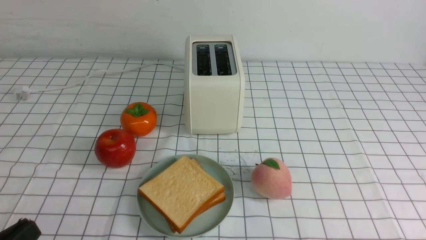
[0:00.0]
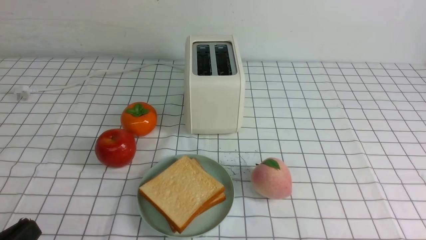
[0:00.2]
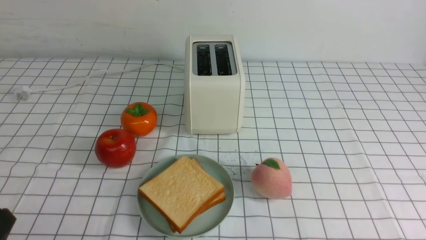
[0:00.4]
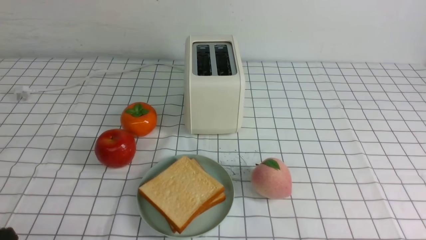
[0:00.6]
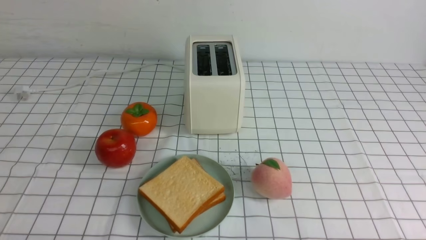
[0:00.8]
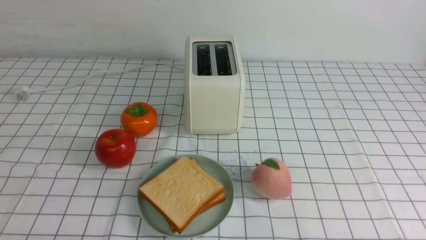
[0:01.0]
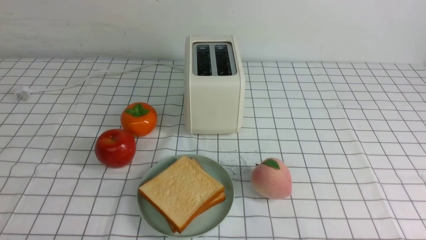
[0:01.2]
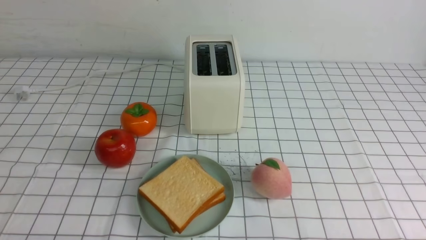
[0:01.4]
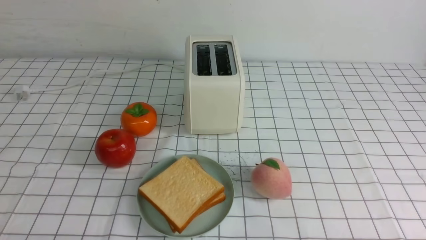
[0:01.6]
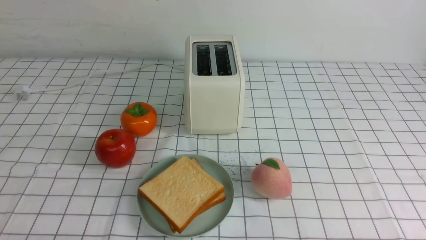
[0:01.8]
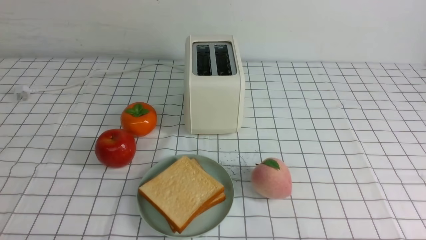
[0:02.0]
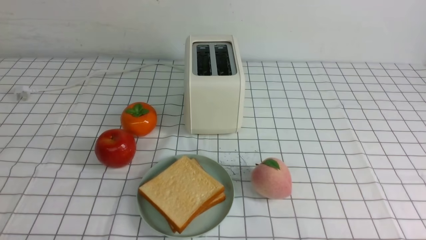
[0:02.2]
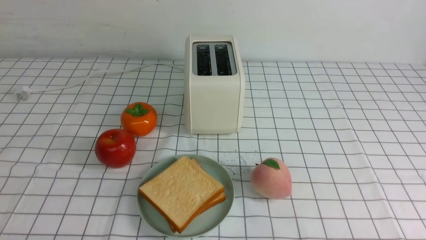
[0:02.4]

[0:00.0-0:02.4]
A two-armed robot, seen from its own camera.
Task of the whole recording: take toasted bread from bread machine on white checkered table place on plate.
0:00.0 to 0:01.2: The left gripper heads downward, covering some 5 cm.
0:01.2 to 0:02.4: Both grippers stay about where they are.

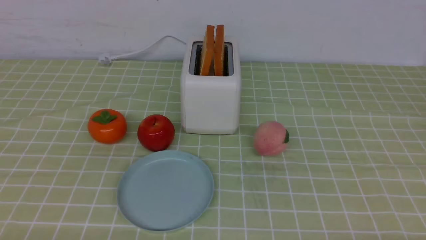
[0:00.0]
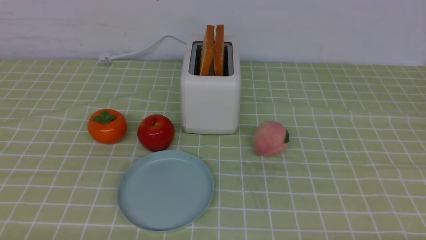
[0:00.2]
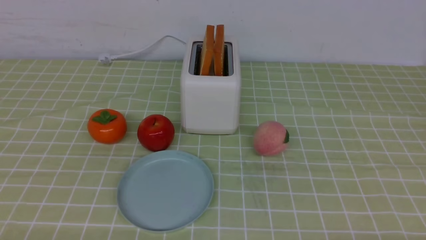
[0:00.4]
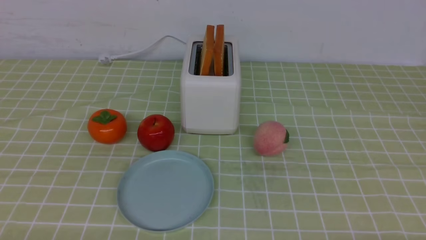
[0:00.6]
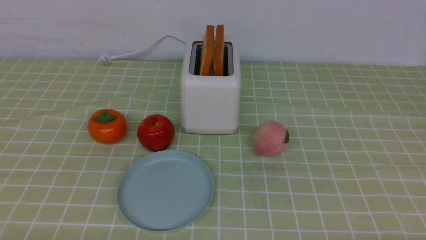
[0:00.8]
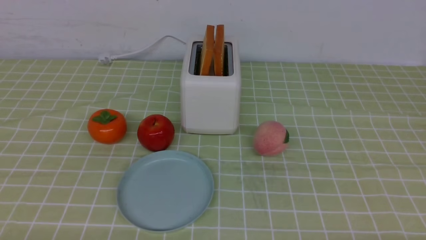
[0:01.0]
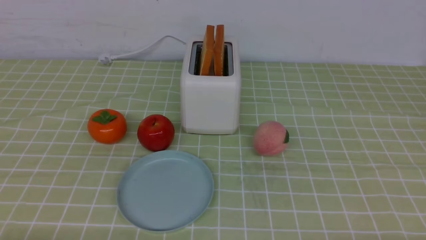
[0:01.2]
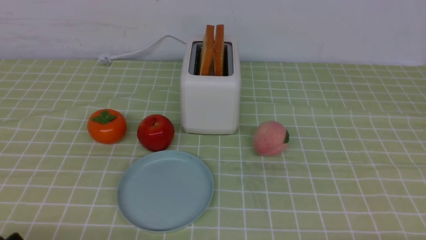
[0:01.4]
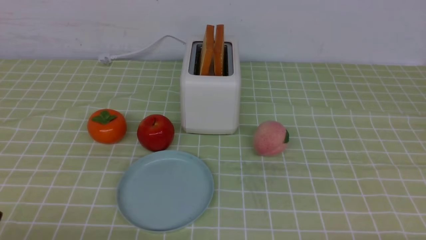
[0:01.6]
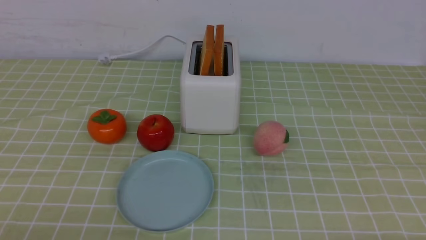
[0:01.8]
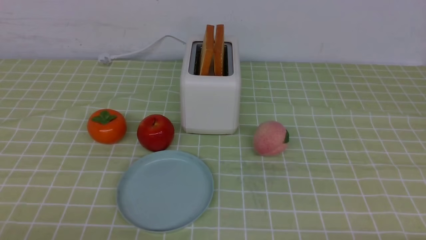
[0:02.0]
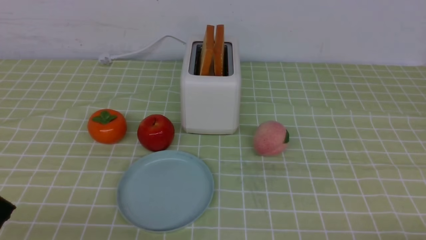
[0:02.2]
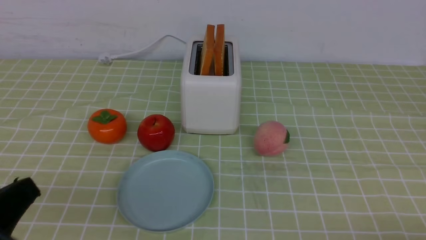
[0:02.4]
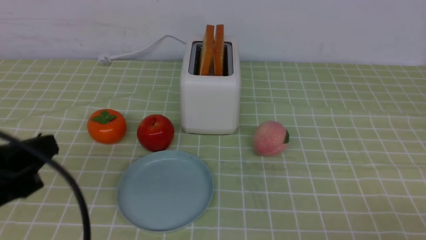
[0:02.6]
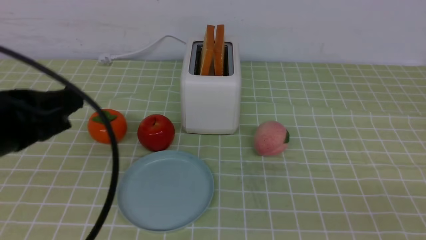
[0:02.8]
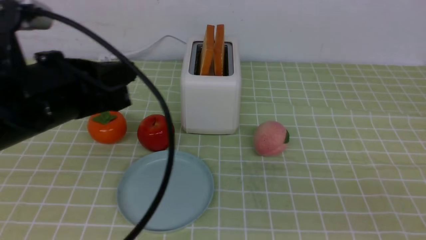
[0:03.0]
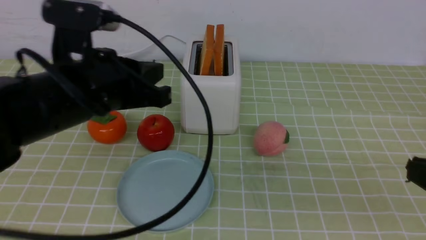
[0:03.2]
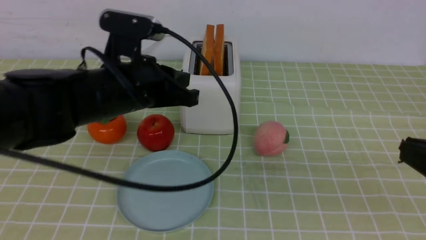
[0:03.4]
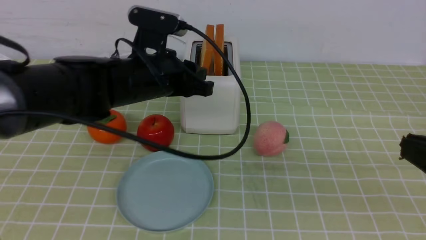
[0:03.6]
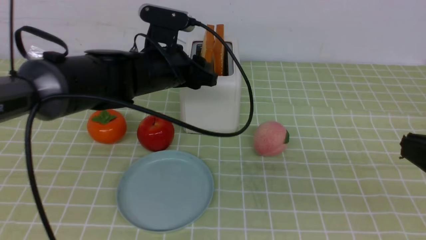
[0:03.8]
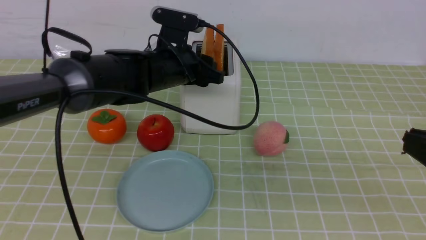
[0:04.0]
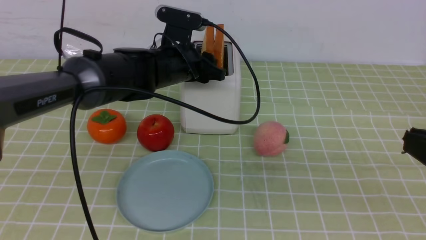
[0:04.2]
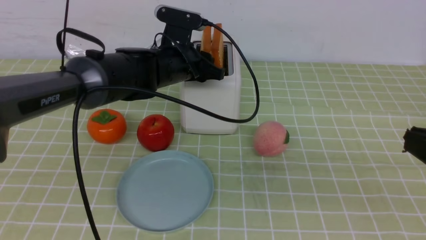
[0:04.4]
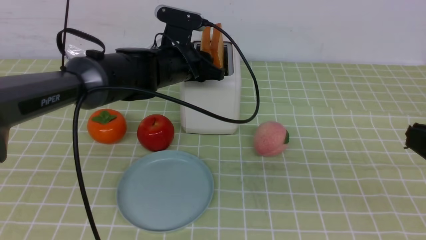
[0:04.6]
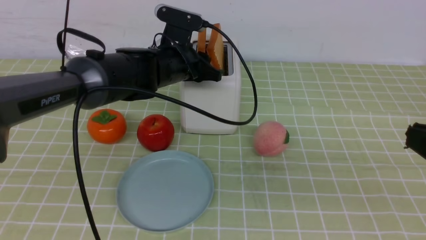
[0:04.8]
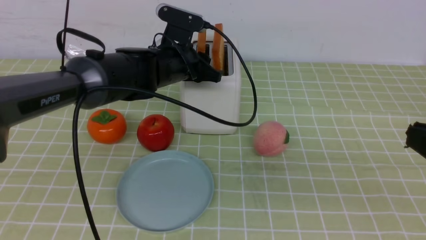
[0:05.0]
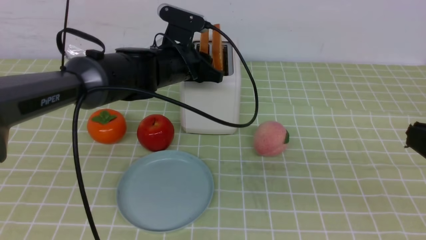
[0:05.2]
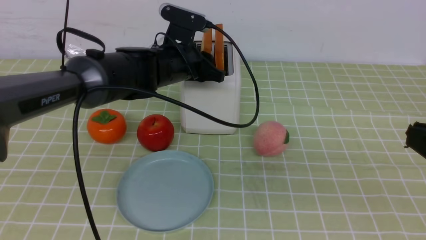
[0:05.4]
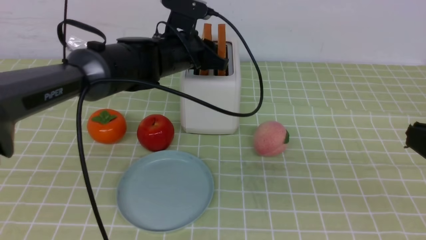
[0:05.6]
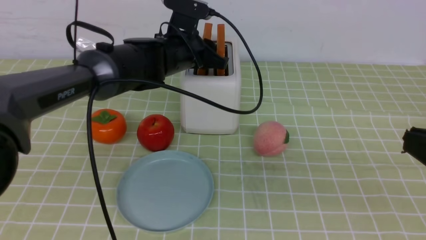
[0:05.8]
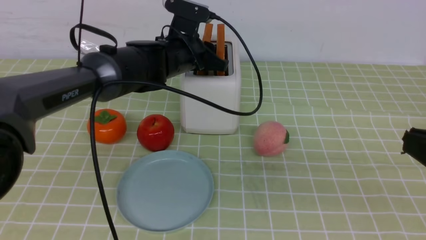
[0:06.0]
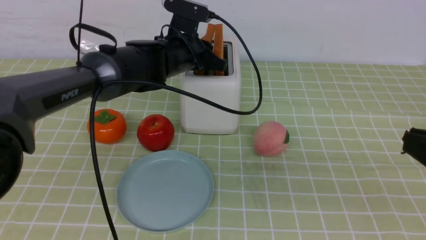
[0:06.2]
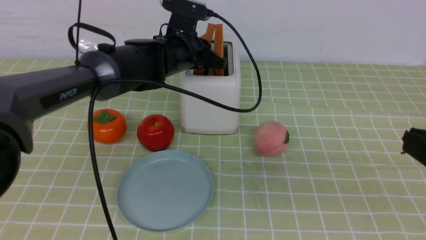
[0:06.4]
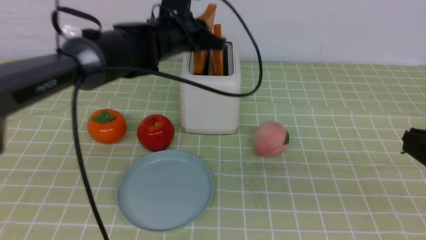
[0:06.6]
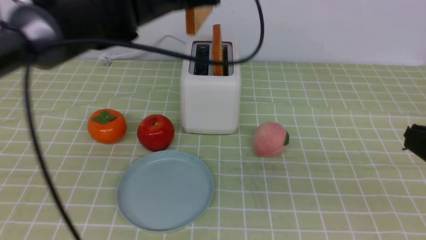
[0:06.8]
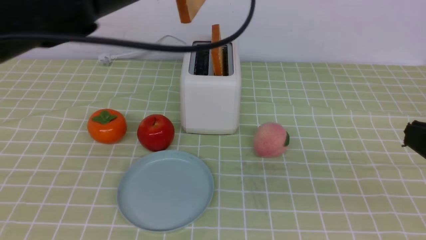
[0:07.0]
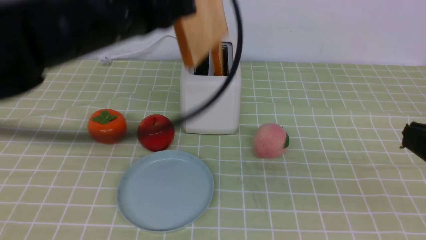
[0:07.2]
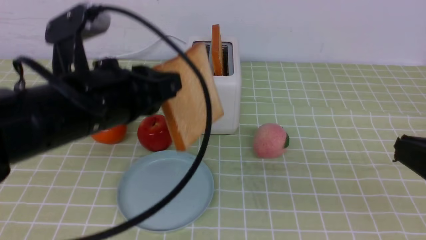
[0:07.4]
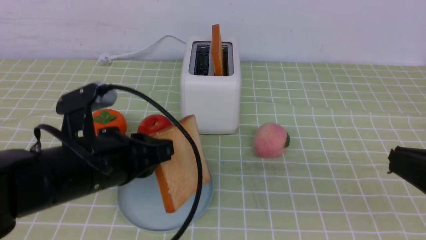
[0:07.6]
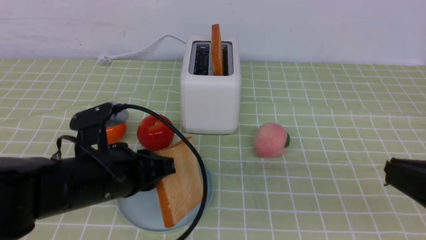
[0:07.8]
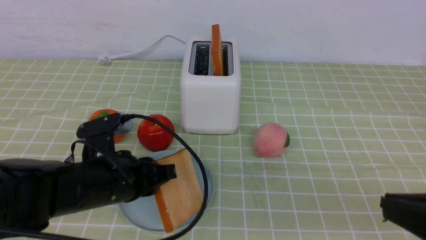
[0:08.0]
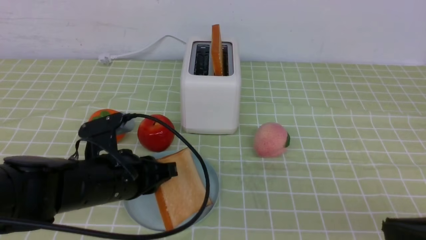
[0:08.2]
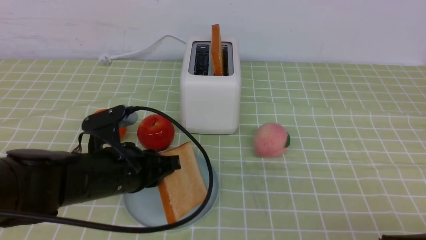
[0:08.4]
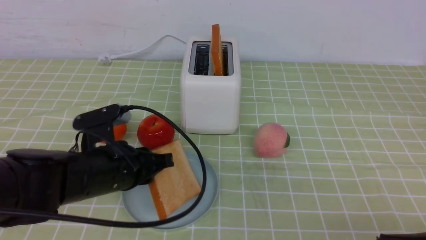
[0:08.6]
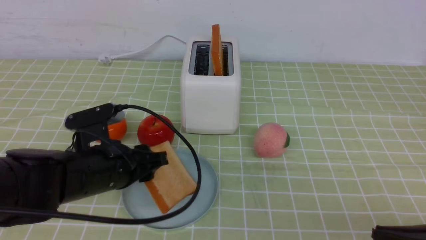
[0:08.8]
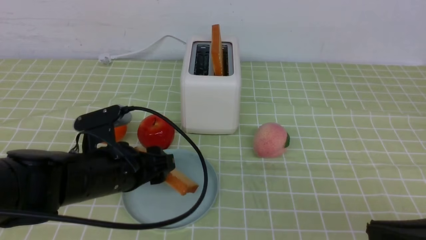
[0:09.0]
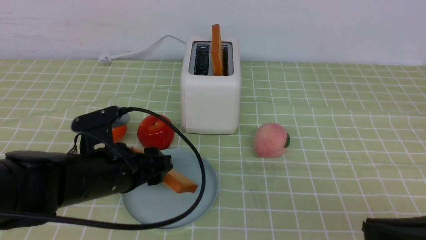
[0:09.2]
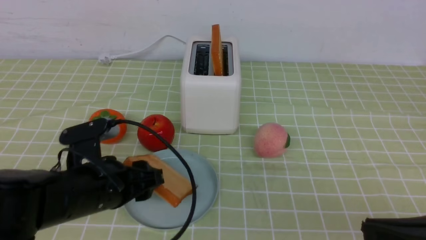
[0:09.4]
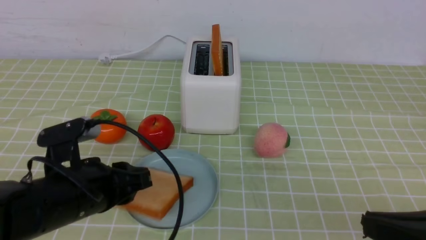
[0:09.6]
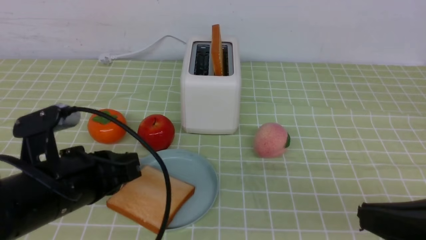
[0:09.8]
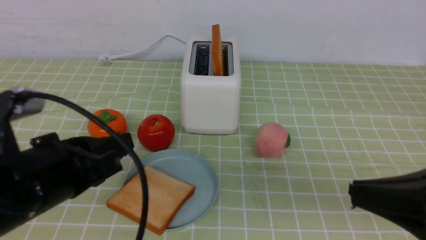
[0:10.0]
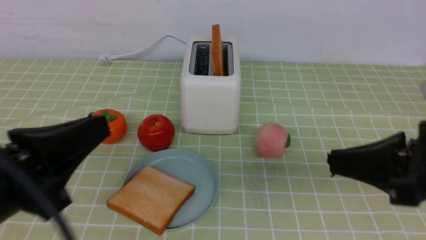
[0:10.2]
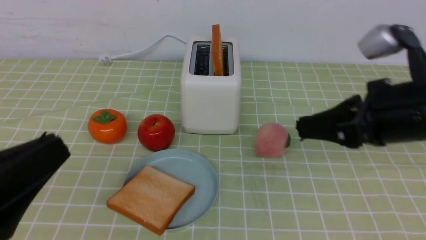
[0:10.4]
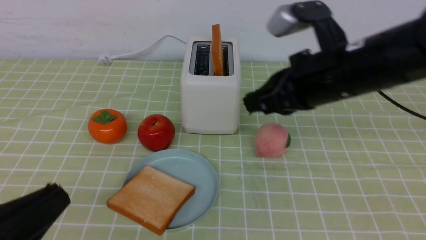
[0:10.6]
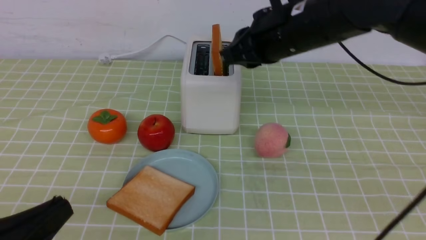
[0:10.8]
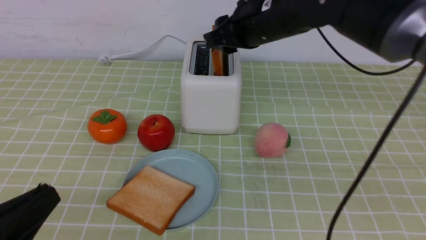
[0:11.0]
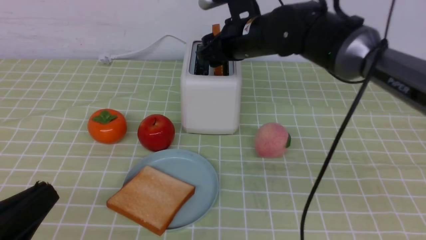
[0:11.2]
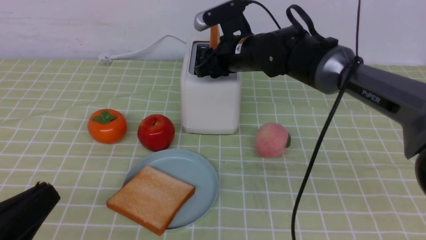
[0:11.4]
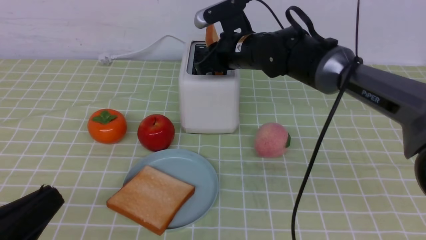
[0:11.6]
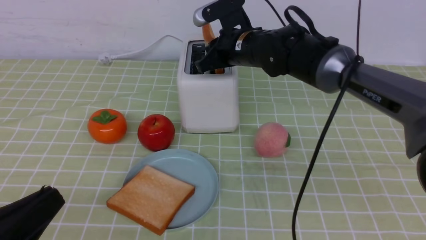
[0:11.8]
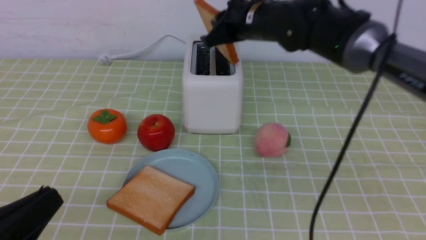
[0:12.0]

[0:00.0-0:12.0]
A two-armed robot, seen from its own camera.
Task of the whole recording: take toasted bread from bread machine on green coffee tablecloth place on plate.
Step, 0:00.0 to 0:06.8: use the left arm to take out a slice of bread.
Step, 0:07.2 to 0:09.8: use the left arm to put a slice of bread into the empty plate.
Step, 0:10.0 to 0:12.0: use the right arm to take out a slice of bread.
0:01.6 to 0:03.0: The left gripper goes some 25 cm forward, upward and to the right, and closes its fingers; the right gripper travels upward by roughly 15 cm, and closes its fingers.
0:03.0 to 0:04.4: The left gripper moves forward and to the right, some 25 cm, and opens up.
0:04.4 to 0:06.0: The grippers make only small movements.
0:06.0 to 0:07.6: The left gripper travels backward by approximately 25 cm.
0:07.6 to 0:09.0: Both grippers move downward, approximately 5 cm. The left gripper opens its fingers.
0:09.0 to 0:10.4: The left gripper is displaced backward and upward by some 20 cm, and closes up; the right gripper goes some 15 cm forward, upward and to the left.
0:10.4 to 0:12.0: The right gripper shifts some 20 cm forward and to the left, and opens, then closes again; the left gripper travels downward by roughly 5 cm.

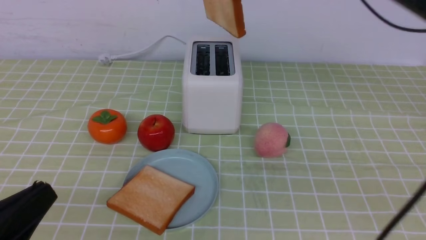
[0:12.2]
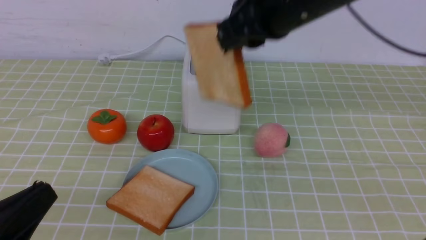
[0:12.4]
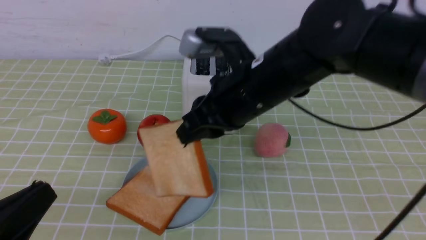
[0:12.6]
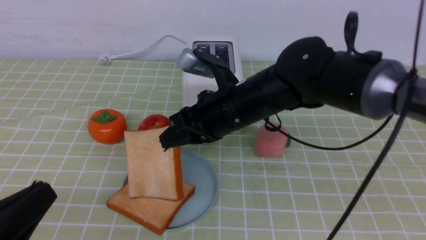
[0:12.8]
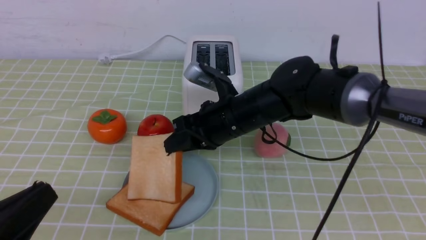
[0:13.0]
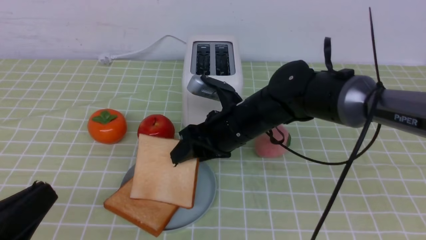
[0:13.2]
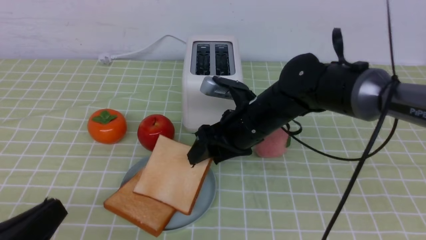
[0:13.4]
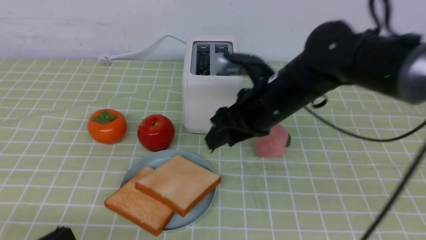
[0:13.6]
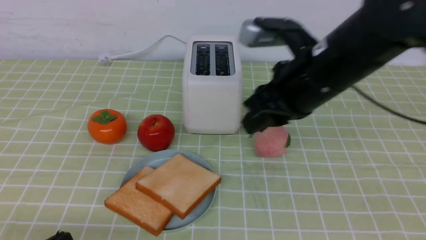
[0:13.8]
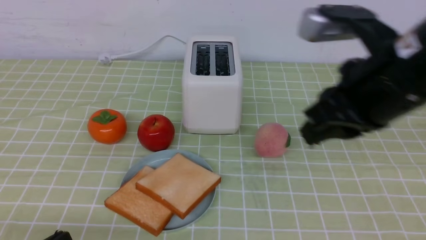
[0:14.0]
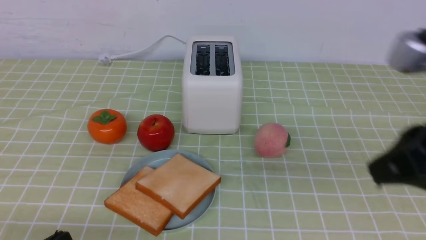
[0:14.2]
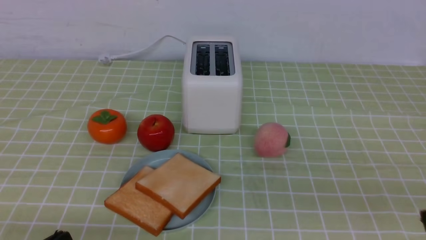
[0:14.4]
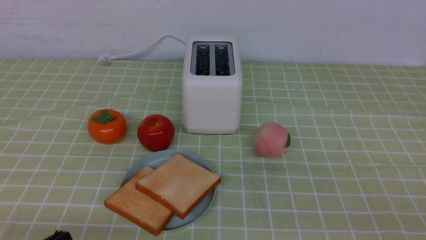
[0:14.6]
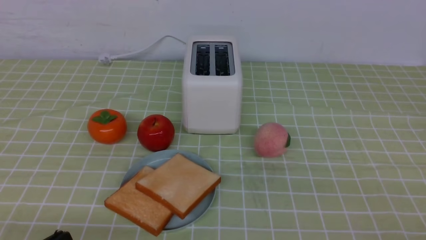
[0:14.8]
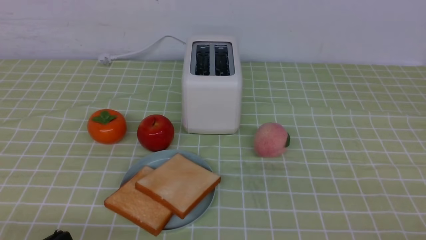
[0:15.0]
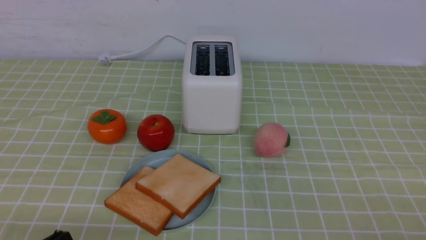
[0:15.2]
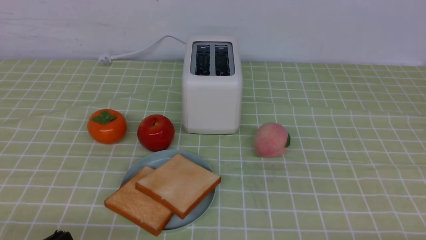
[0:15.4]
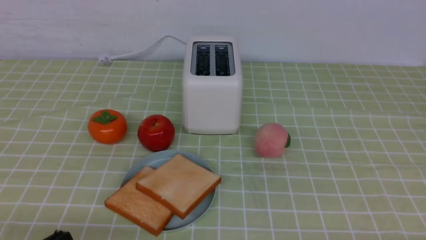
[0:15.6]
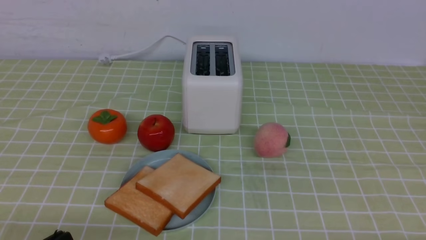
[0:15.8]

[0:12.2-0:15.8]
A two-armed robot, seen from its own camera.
Task of the whole recording: take toasted bread from bread machine on green coffee tablecloth place on plate.
Step, 0:12.2 to 0:13.8: use the right arm to put a slice of bread into the plate.
0:12.2 to 0:14.0: The left gripper moves downward, some 5 cm, while the right gripper travels backward and to the right by approximately 20 cm, goes downward and returns, approximately 20 cm each way, and opens and closes again.
0:14.0 to 0:15.8: The right gripper is displaced downward, backward and to the right by about 30 cm.
